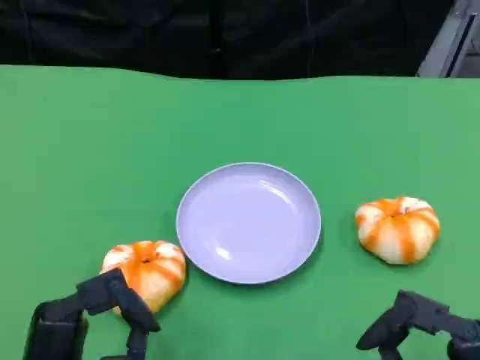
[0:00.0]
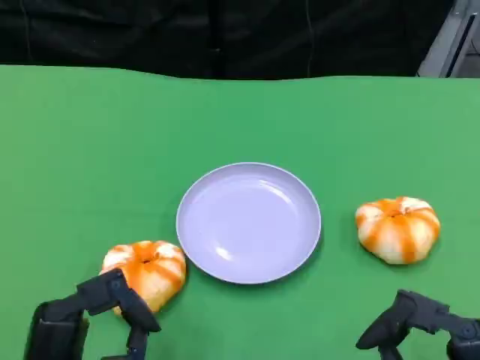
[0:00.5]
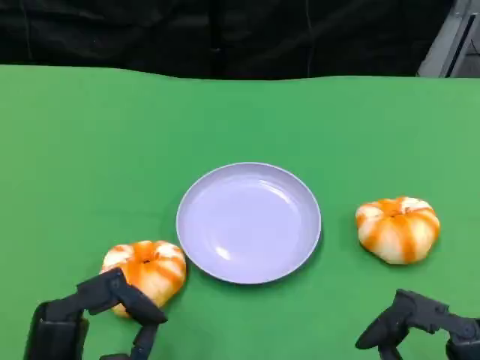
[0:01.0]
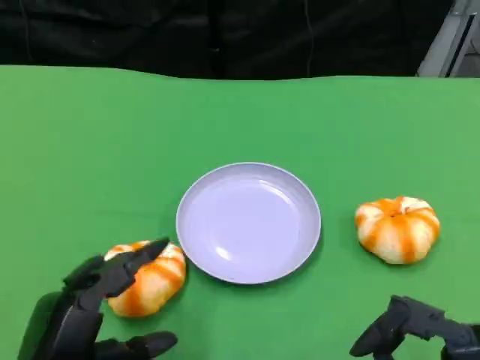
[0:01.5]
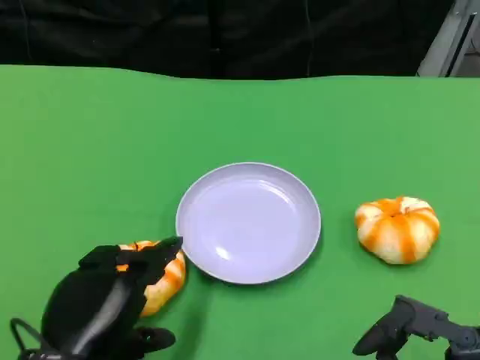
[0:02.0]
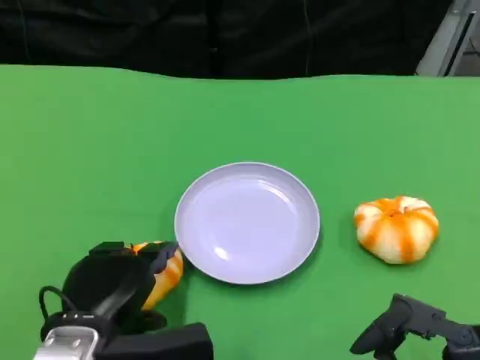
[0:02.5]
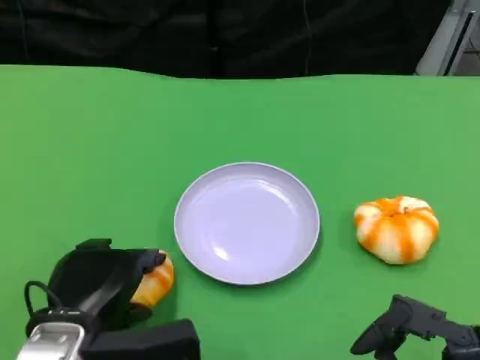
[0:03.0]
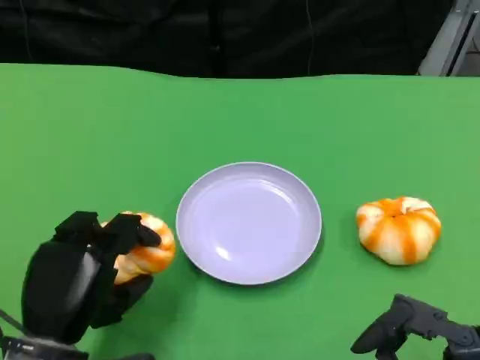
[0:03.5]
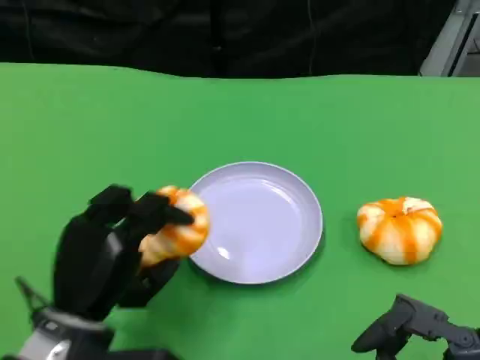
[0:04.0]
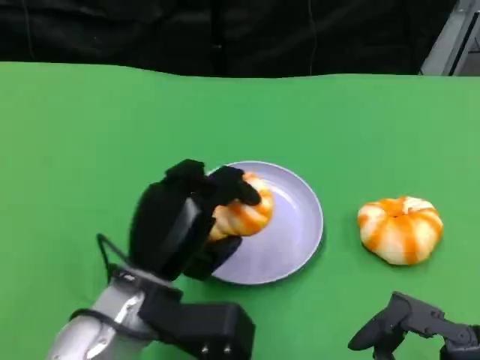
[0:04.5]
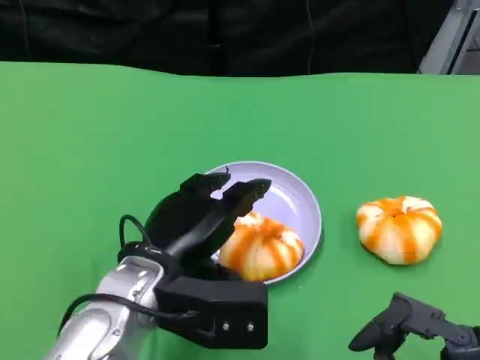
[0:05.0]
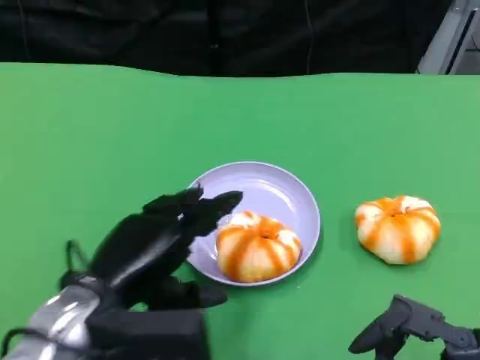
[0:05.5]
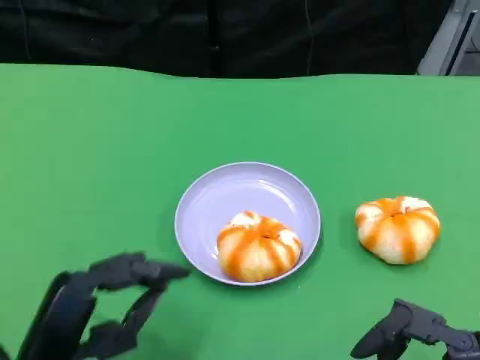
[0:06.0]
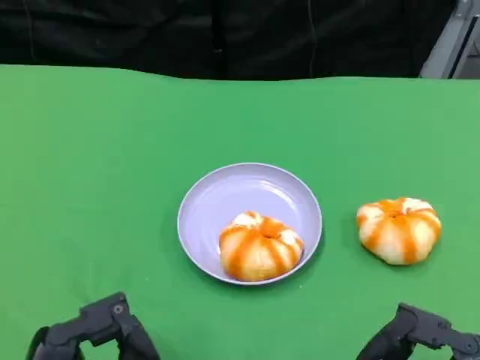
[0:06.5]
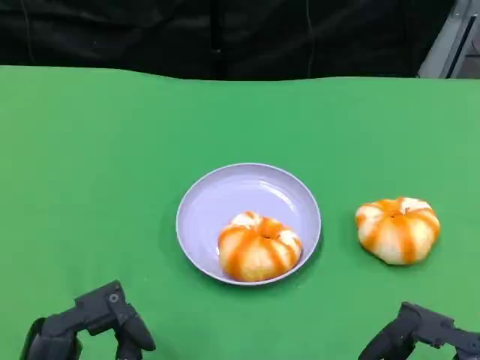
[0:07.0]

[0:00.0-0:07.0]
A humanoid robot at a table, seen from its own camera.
Task of the whole recording: Grasp the bread from the table and place it into the plate.
0:03.5 to 0:05.0: The left hand is displaced to the right, forward and upward by about 10 cm.
0:05.0 to 0:07.0: The left hand goes approximately 15 cm backward and to the left.

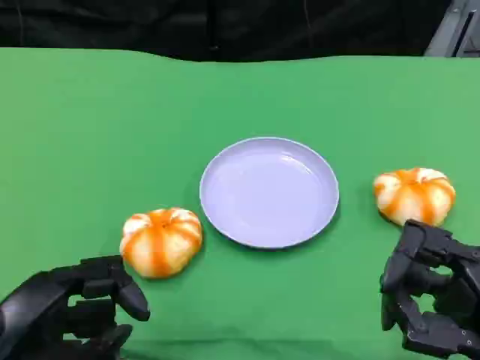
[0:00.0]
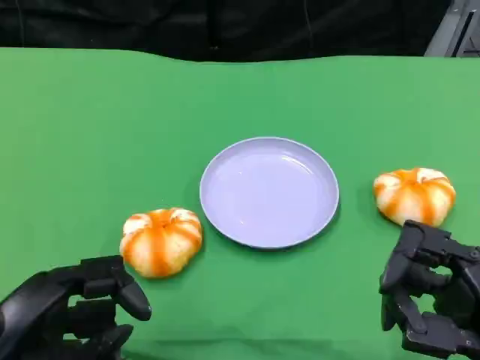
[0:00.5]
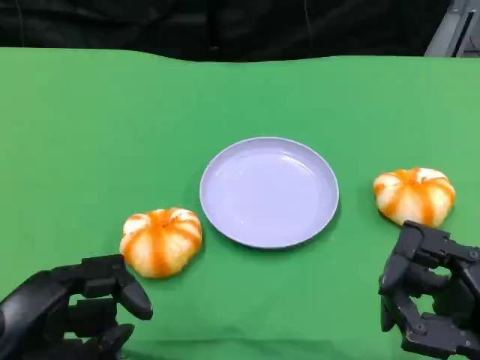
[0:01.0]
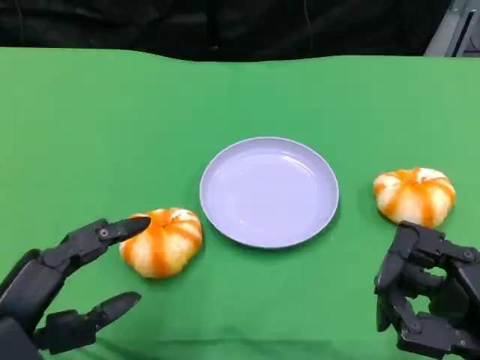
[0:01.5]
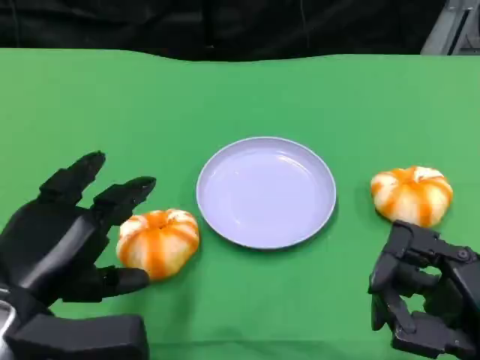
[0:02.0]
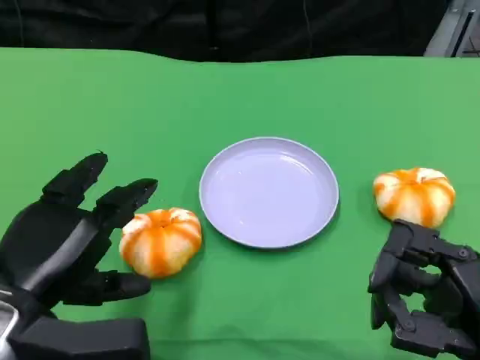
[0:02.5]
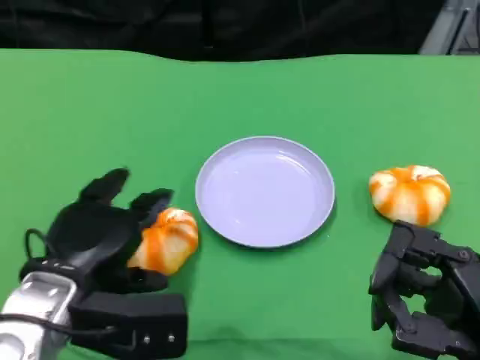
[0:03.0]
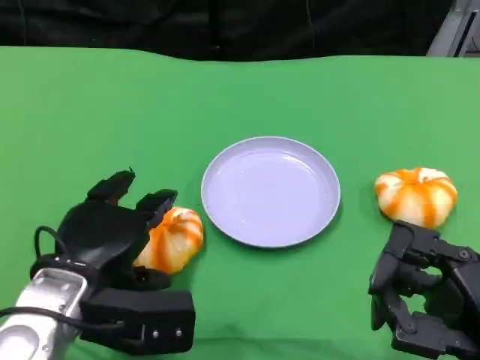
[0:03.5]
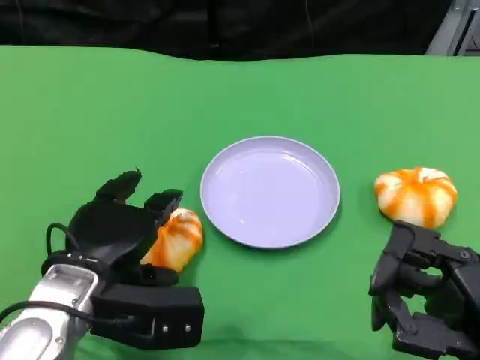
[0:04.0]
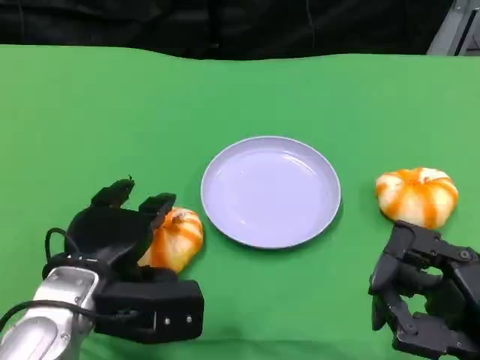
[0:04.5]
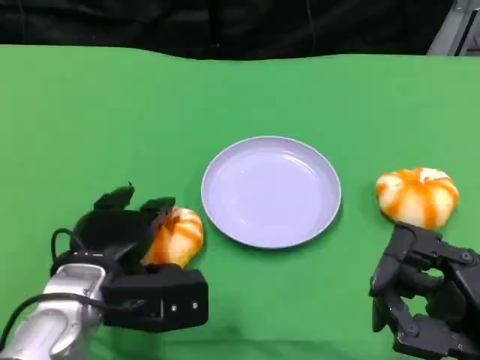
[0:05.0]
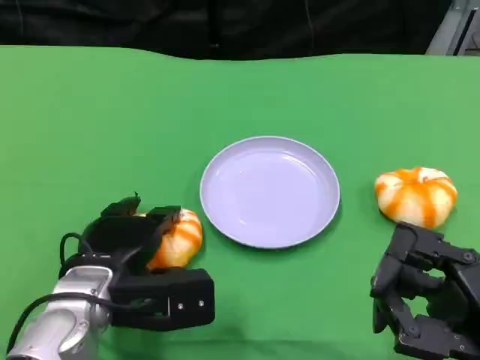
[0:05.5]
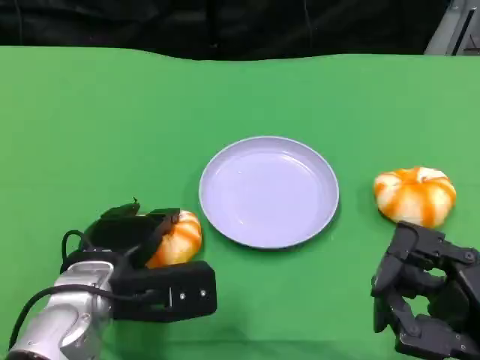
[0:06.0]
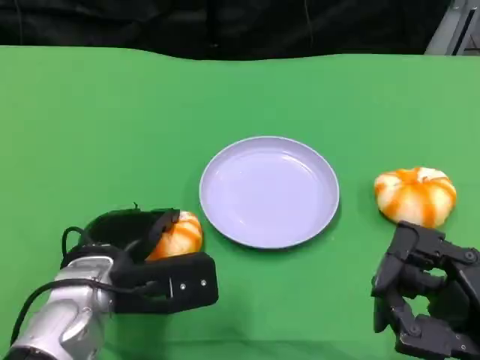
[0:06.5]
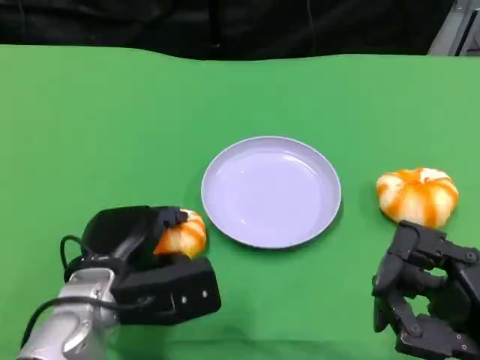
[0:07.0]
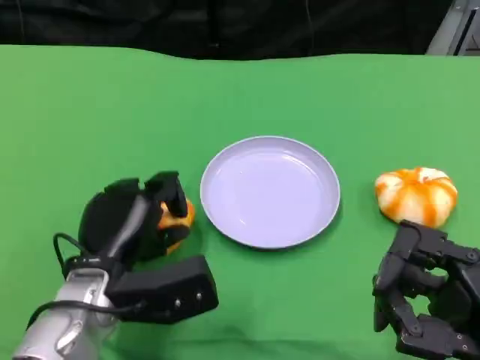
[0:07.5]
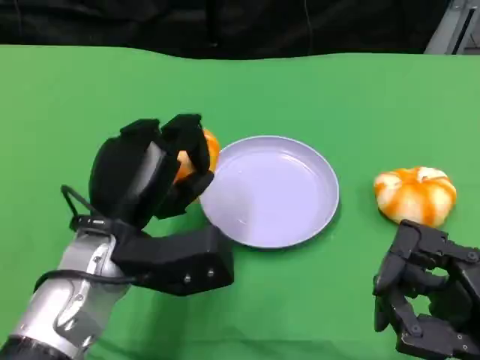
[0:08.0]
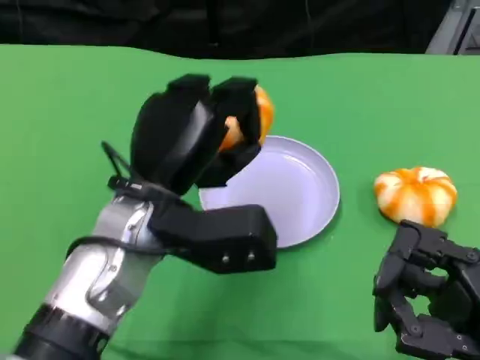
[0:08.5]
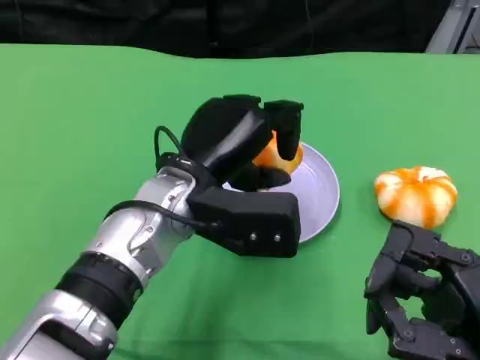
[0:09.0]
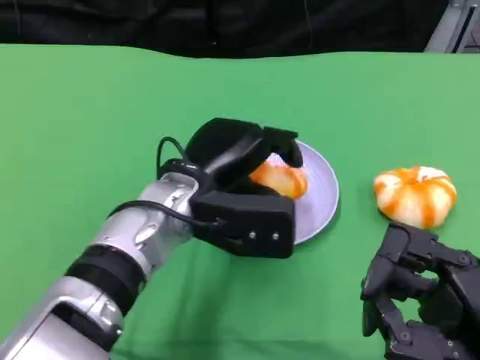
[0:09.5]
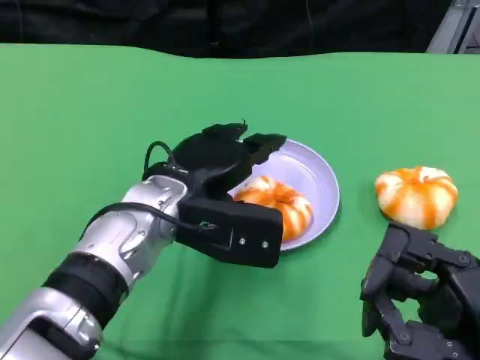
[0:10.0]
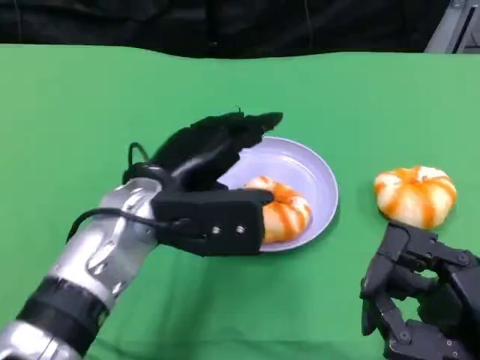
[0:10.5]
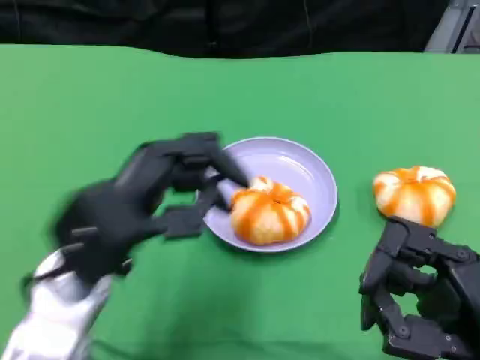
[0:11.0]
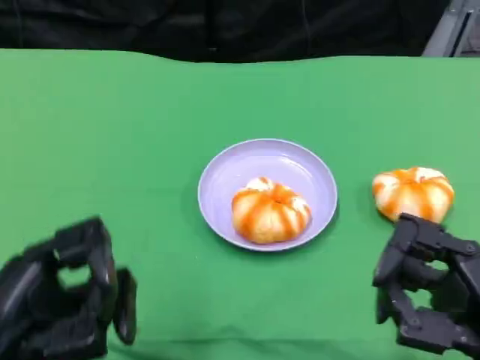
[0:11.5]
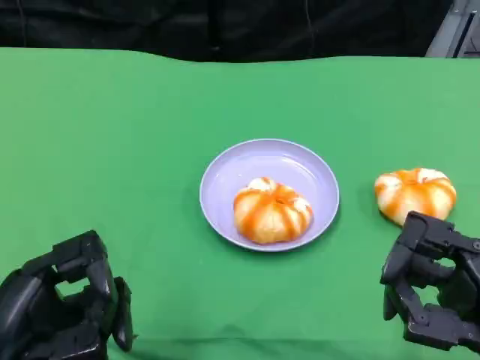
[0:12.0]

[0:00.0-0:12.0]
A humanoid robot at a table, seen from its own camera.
Task of the whole recording: Grasp the bread from the table and place it into the plate.
0:00.0 to 0:02.0: The left hand shifts roughly 5 cm forward.
0:02.0 to 0:04.0: The left hand is displaced forward by approximately 5 cm.
0:04.0 to 0:06.0: The hands make only small movements.
0:06.0 to 0:08.0: The left hand is displaced upward by roughly 5 cm.
0:08.0 to 0:10.0: The left hand moves some 5 cm.
0:10.0 to 0:12.0: The left hand travels backward and to the left by about 25 cm.

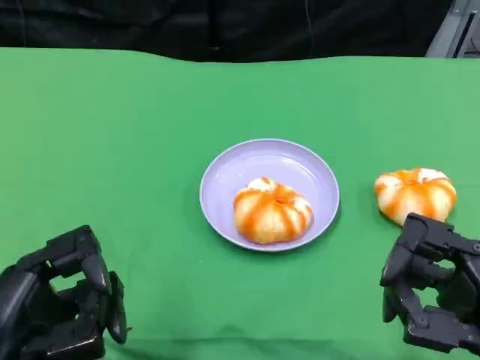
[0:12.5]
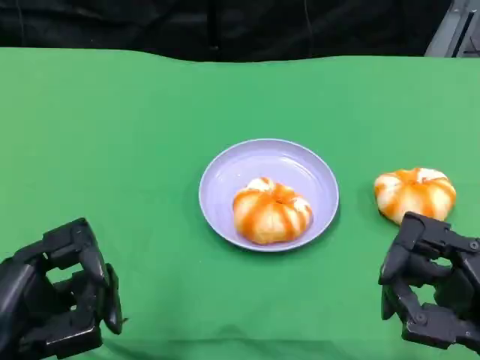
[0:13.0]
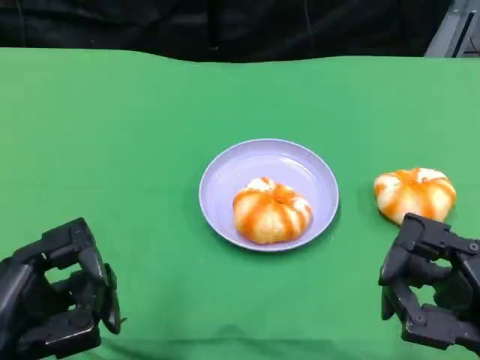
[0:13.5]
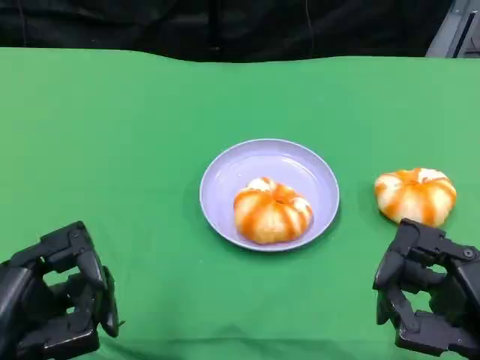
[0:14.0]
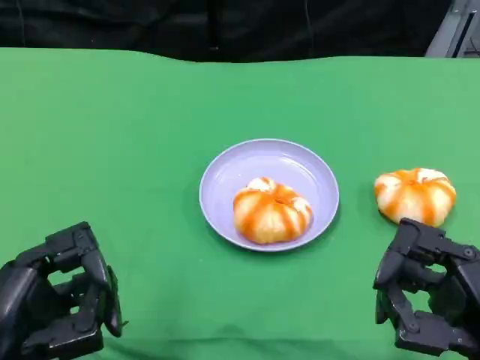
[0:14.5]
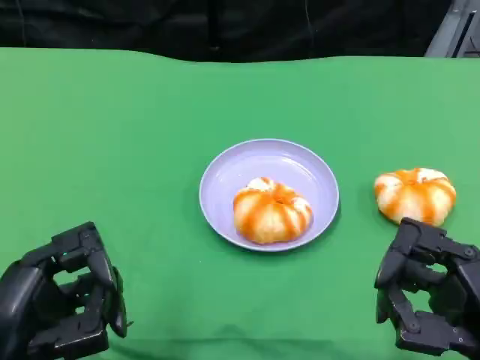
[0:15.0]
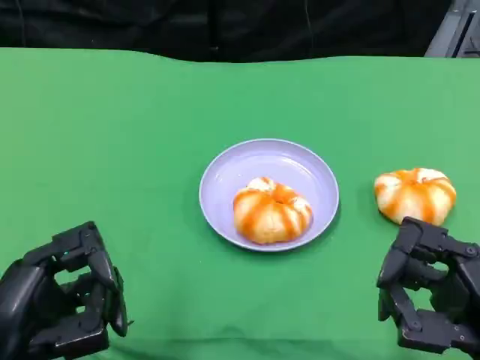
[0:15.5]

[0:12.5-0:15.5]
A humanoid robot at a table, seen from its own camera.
Task of the whole recording: Grasp the bread from the table and place it into the plate.
0:12.5 to 0:15.5: Both hands stay put.

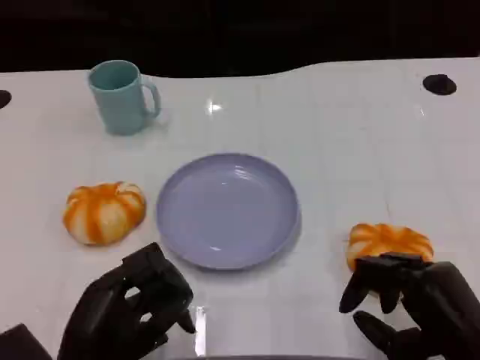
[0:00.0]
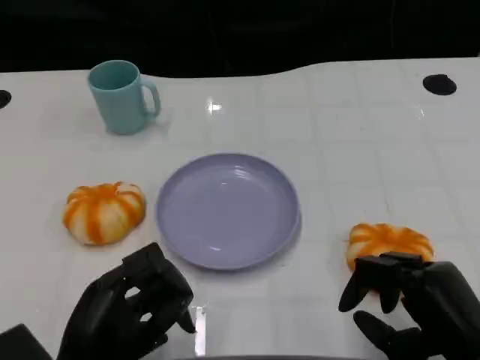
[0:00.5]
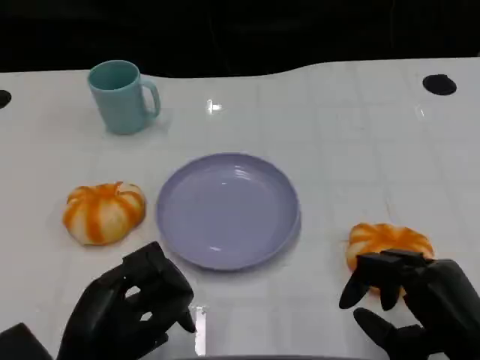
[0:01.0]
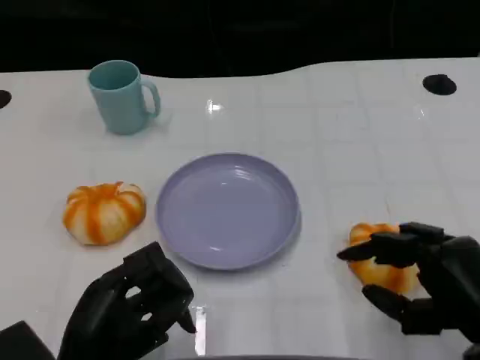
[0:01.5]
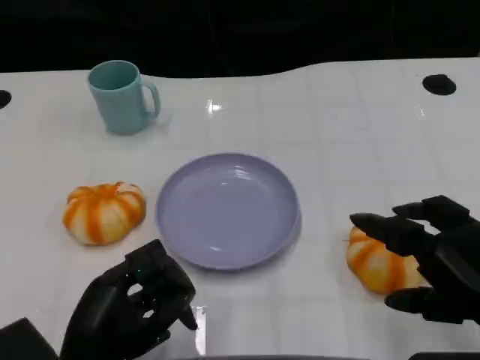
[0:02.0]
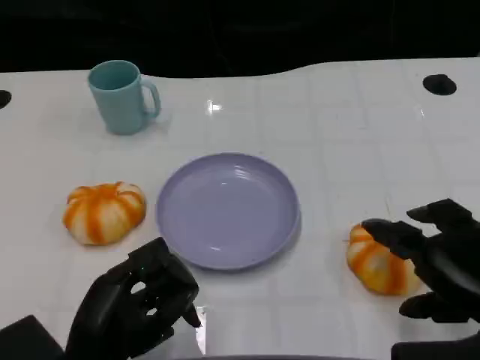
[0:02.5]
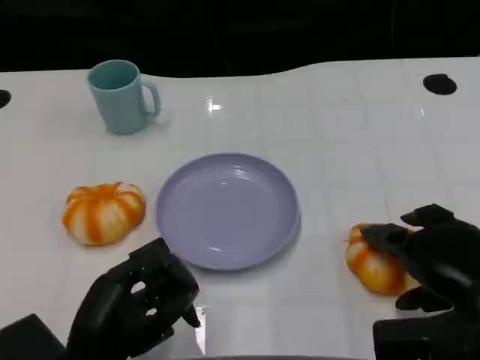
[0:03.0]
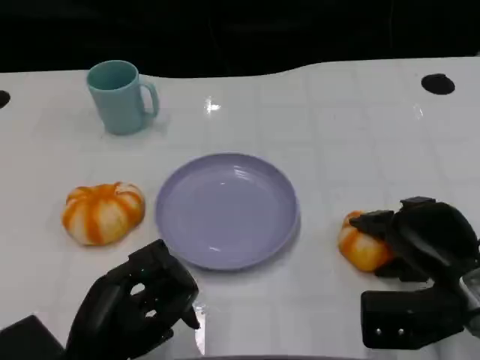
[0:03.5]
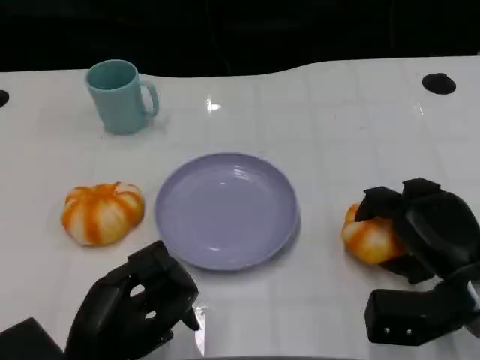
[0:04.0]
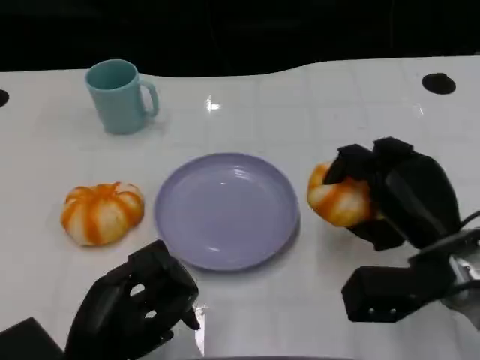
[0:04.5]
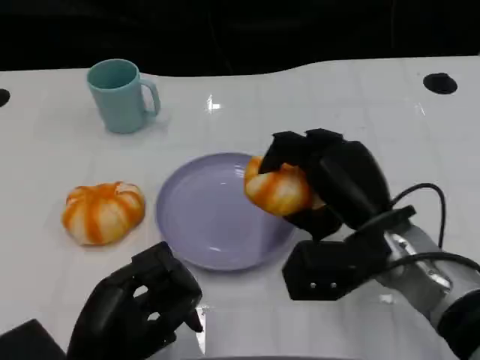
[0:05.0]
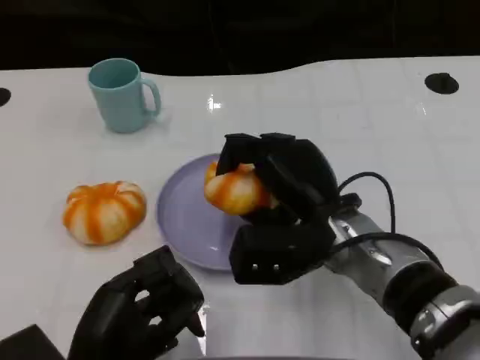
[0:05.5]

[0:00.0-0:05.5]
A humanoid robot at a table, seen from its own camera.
Task of the whole recording: Grasp the bread from the table and place it into the plate.
0:00.0 to 0:02.0: The right hand heads upward, covering some 5 cm.
0:02.0 to 0:03.5: The right hand moves forward and downward, about 10 cm.
0:03.5 to 0:05.5: The right hand is displaced to the left by roughly 15 cm.
